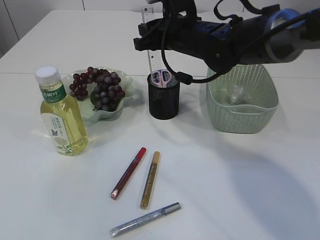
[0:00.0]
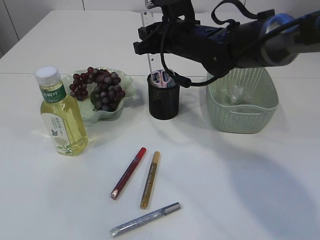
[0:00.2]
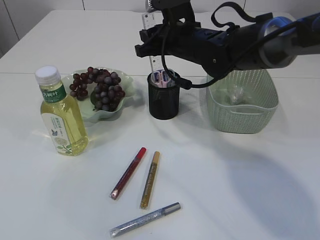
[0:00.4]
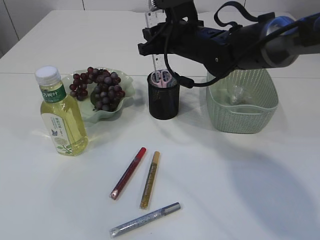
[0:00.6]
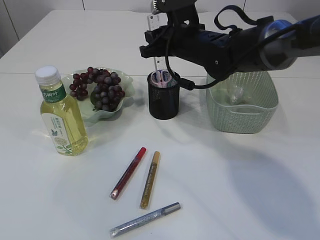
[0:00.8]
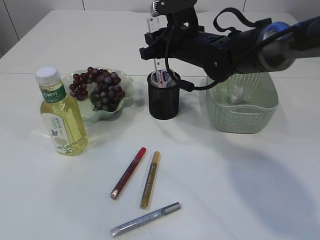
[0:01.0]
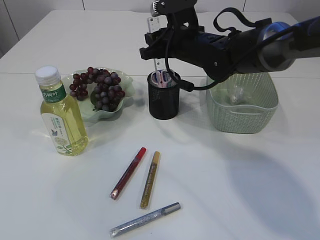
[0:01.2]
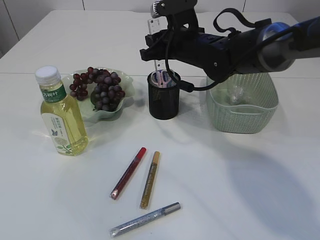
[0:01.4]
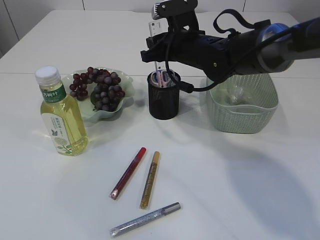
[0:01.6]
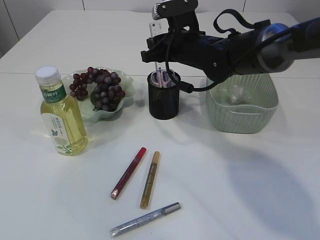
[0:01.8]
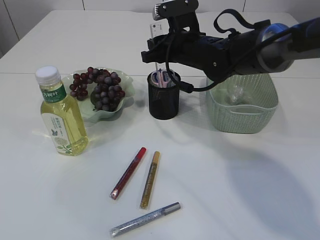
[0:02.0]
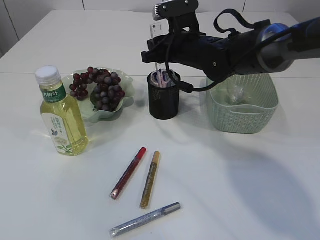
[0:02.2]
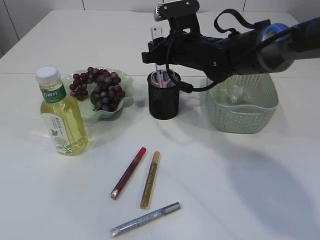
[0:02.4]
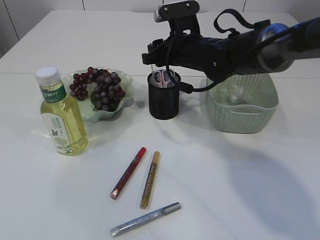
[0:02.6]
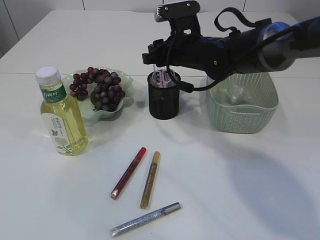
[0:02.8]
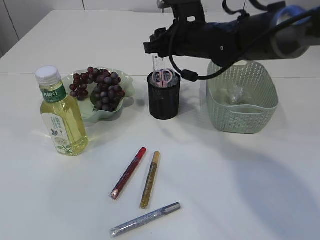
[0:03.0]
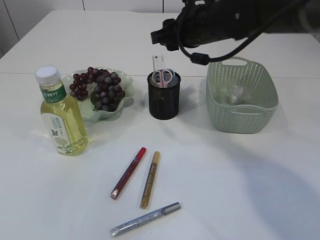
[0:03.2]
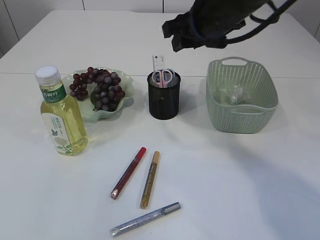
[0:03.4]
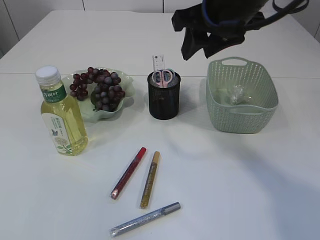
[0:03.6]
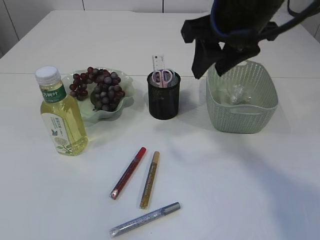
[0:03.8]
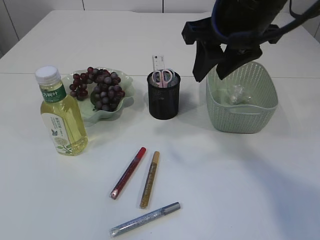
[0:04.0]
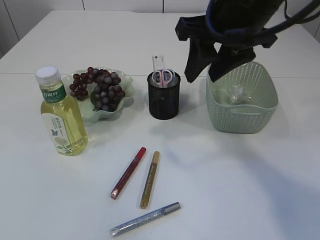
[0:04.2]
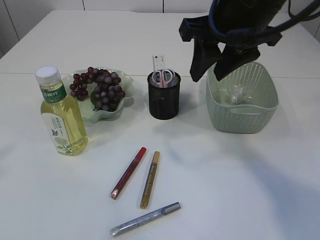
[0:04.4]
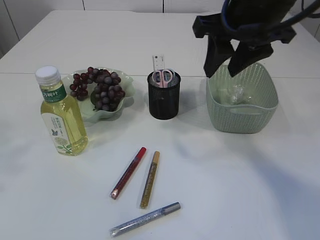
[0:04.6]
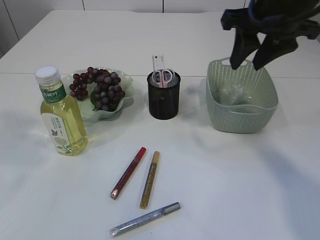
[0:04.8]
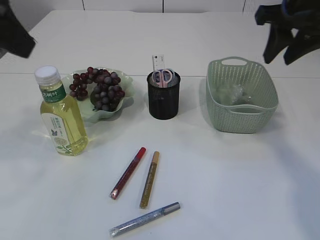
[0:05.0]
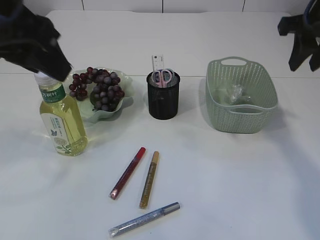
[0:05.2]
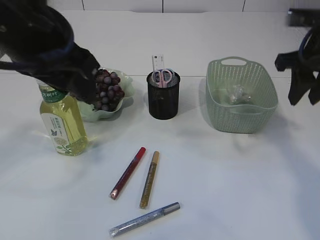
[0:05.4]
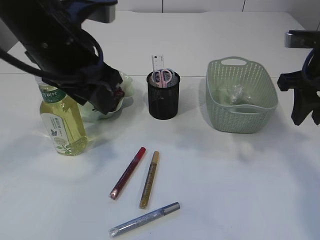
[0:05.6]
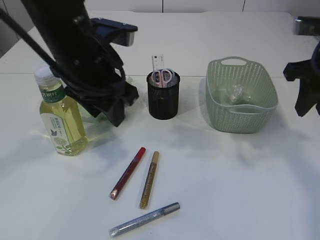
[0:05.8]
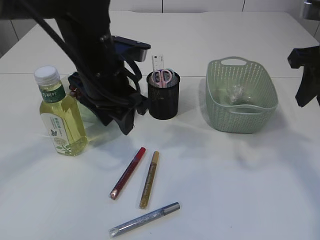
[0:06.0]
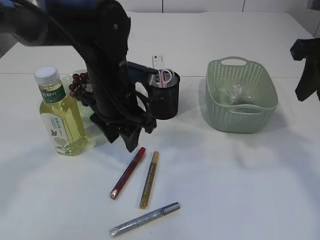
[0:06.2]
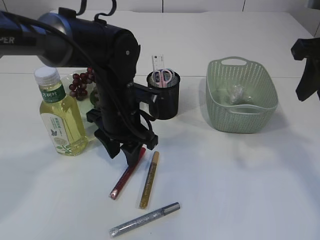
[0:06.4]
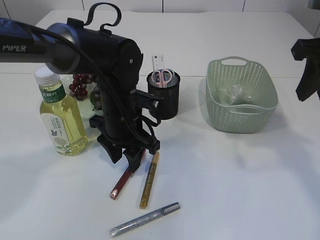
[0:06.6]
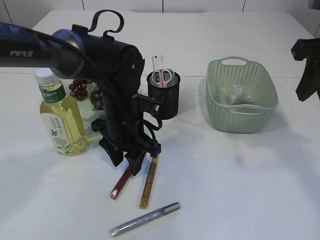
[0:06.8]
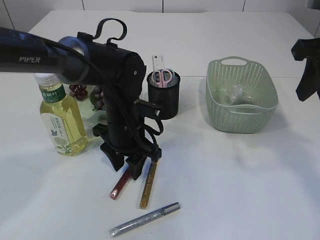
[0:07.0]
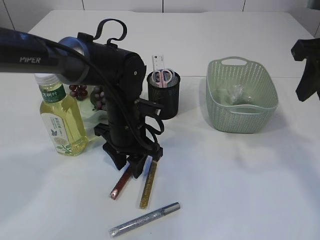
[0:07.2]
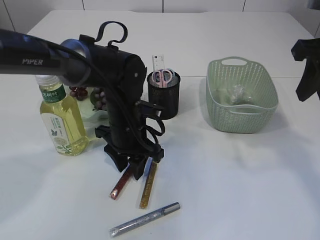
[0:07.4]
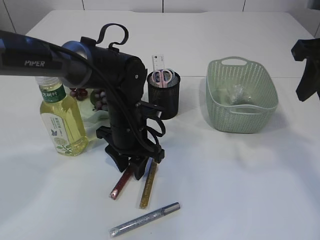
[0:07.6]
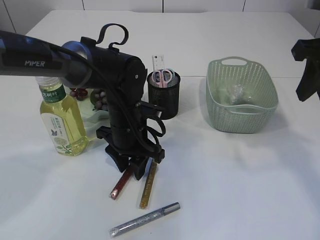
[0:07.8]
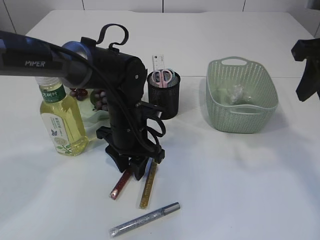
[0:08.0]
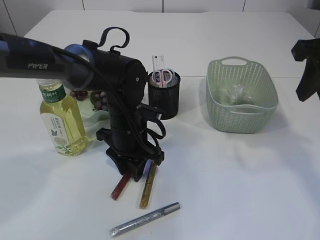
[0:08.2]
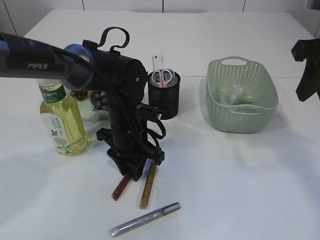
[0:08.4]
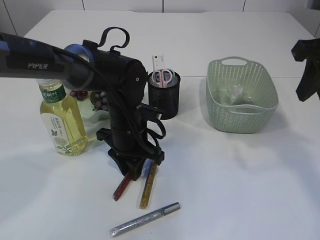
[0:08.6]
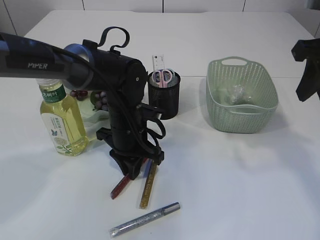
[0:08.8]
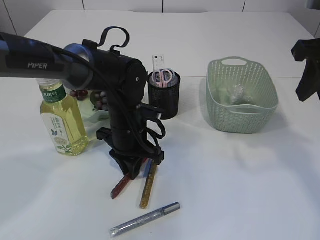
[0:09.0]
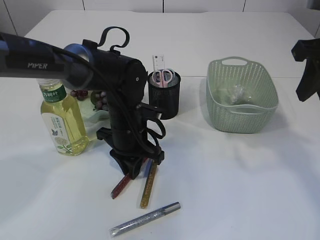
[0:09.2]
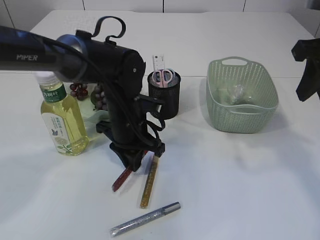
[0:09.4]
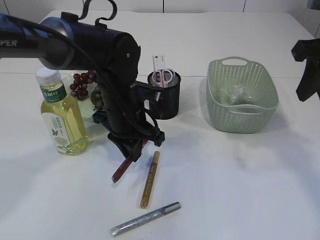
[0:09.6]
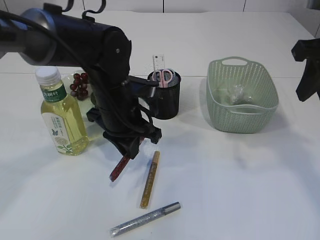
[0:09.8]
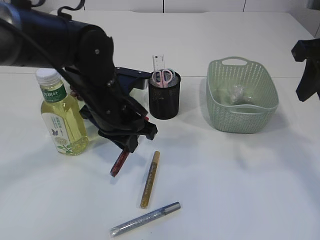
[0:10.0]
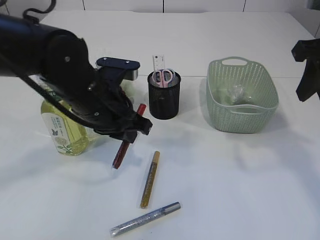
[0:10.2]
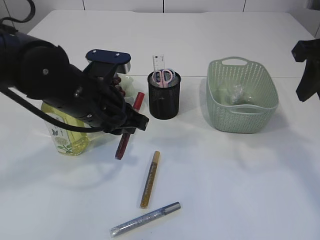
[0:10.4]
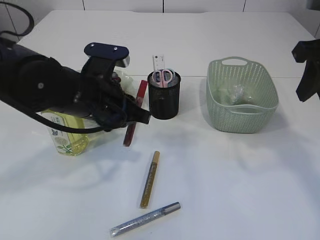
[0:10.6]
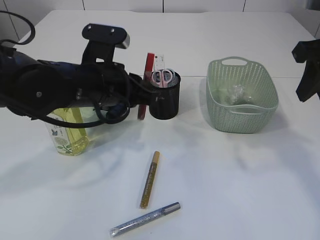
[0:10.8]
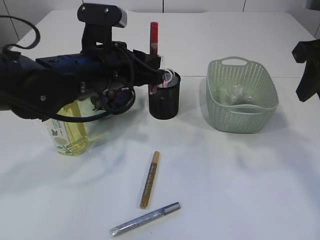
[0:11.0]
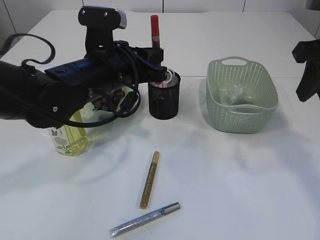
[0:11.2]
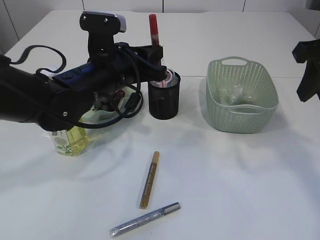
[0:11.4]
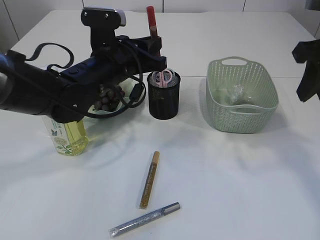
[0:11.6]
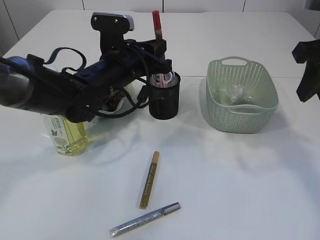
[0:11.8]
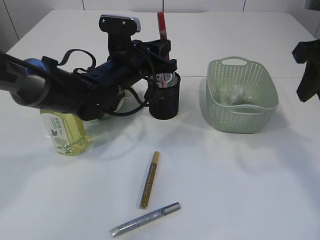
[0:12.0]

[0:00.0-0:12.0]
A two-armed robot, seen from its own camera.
Step, 0:00.0 to 0:03.4: Place the ruler into the pen holder.
Step, 0:03.6 to 0:09.8: pick up the red glue.
0:00.0 to 0:03.0: The grippers move only a little.
0:03.0 to 0:04.4: The right gripper travels backward and upward by some 15 cm.
0:04.4 to 0:06.0: The left gripper travels downward, forward and to the right by some 35 cm; the right gripper moves to the right, some 15 cm.
0:06.0 to 0:07.6: The left gripper travels downward by roughly 15 cm.
0:07.6 to 0:09.0: The left gripper closes.
0:09.0 to 0:10.4: The left gripper moves upward and backward, some 10 cm.
0:10.4 to 0:12.0: The left gripper is displaced forward by about 10 cm.

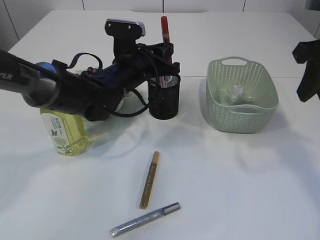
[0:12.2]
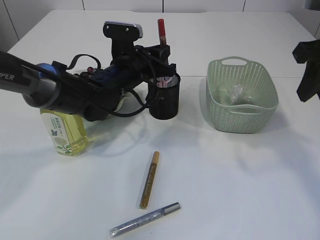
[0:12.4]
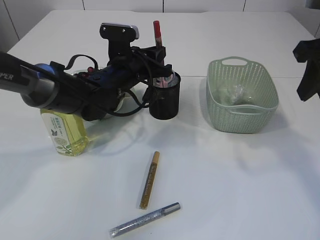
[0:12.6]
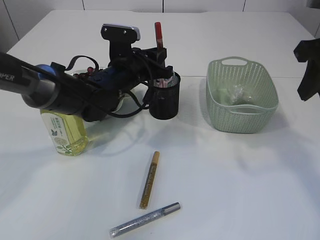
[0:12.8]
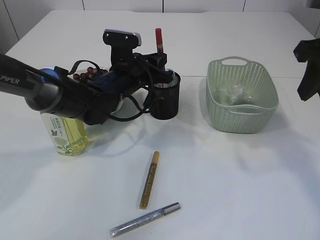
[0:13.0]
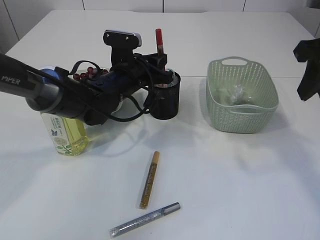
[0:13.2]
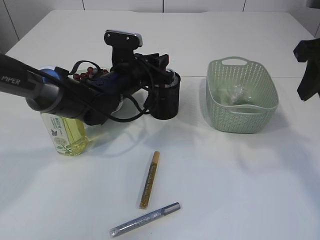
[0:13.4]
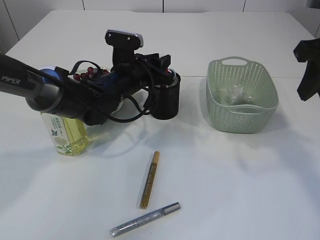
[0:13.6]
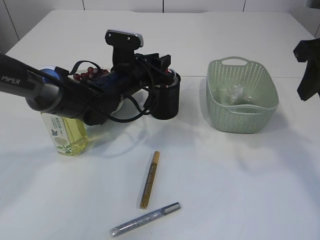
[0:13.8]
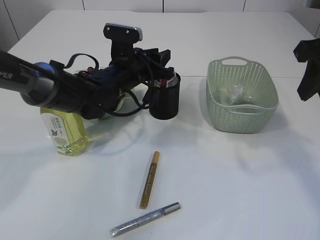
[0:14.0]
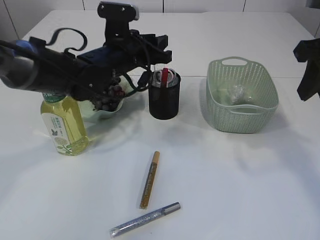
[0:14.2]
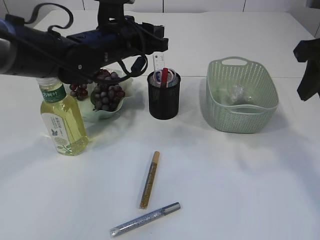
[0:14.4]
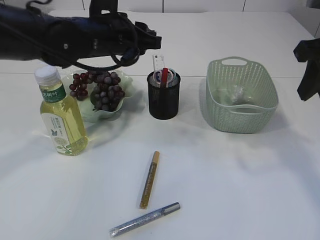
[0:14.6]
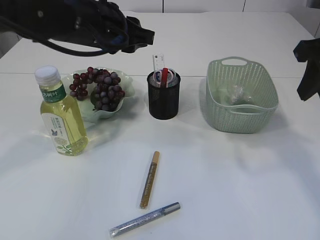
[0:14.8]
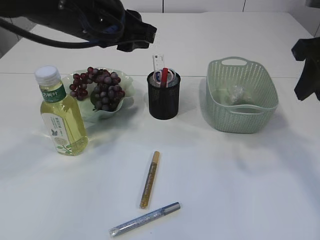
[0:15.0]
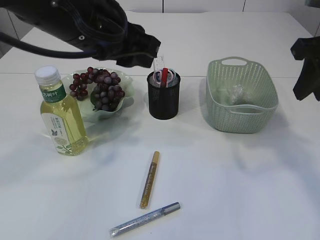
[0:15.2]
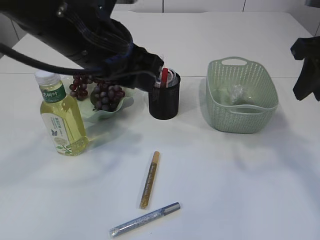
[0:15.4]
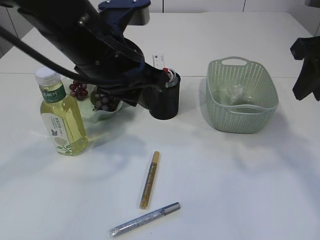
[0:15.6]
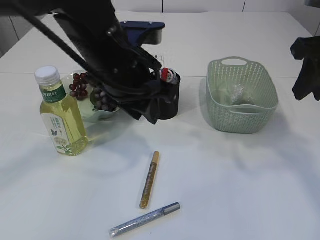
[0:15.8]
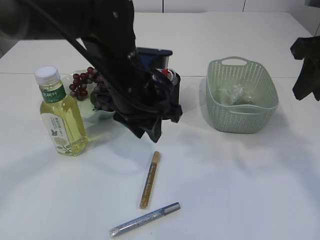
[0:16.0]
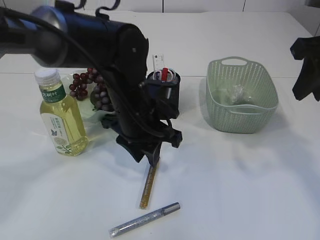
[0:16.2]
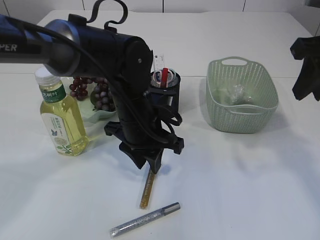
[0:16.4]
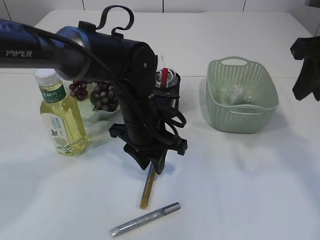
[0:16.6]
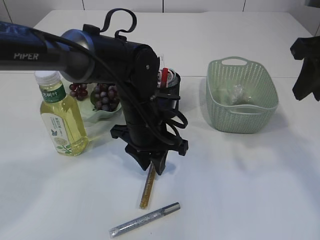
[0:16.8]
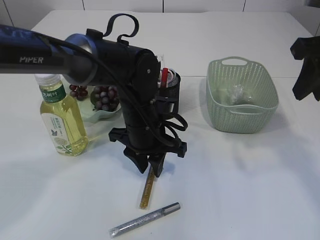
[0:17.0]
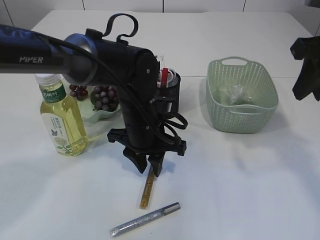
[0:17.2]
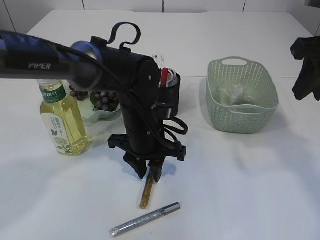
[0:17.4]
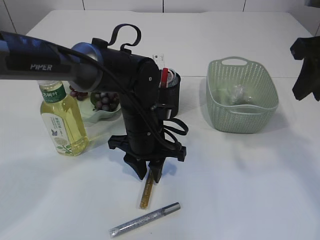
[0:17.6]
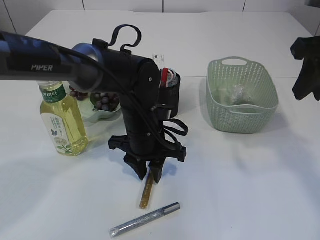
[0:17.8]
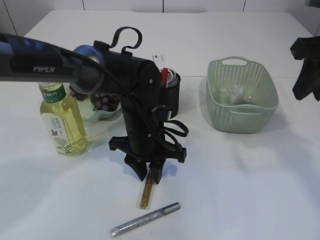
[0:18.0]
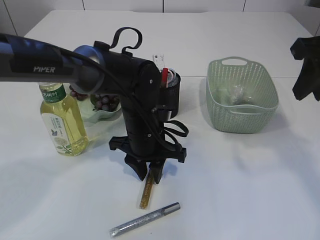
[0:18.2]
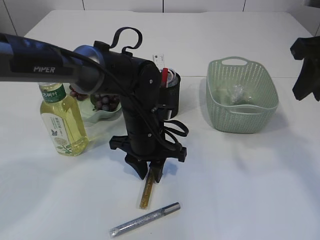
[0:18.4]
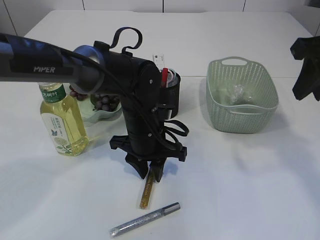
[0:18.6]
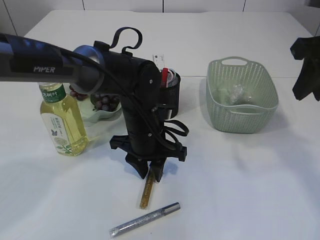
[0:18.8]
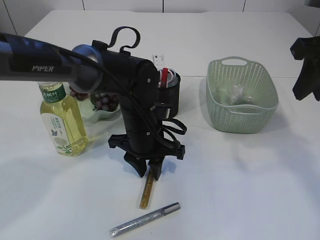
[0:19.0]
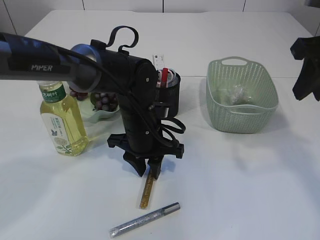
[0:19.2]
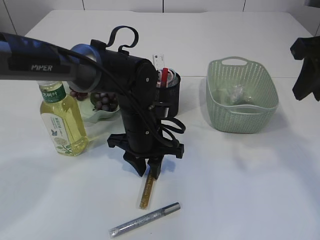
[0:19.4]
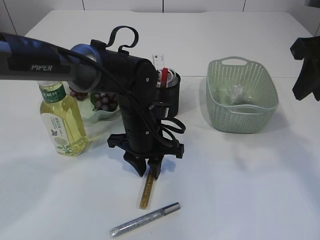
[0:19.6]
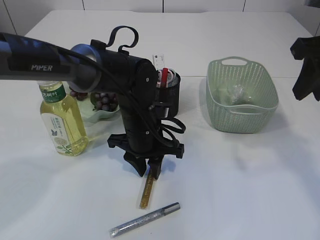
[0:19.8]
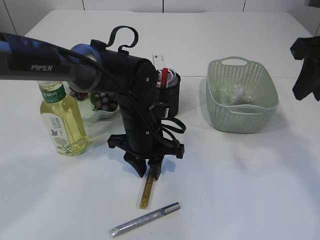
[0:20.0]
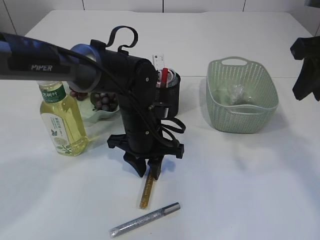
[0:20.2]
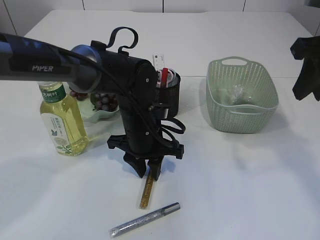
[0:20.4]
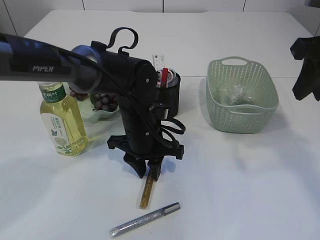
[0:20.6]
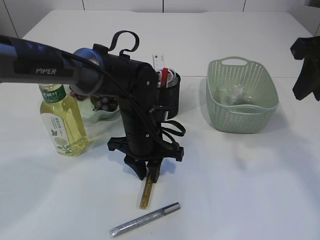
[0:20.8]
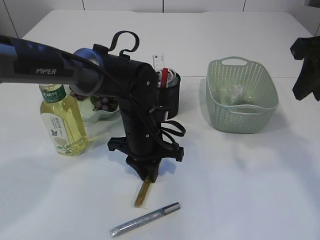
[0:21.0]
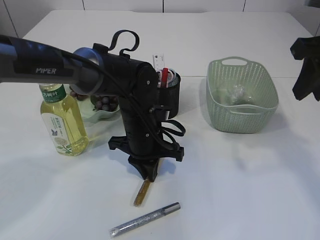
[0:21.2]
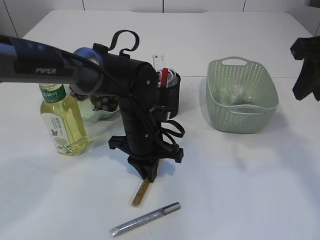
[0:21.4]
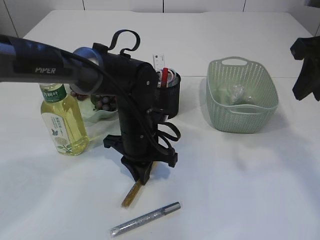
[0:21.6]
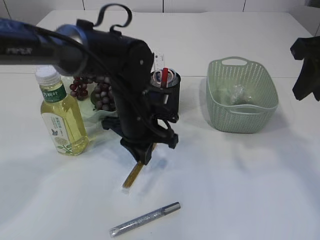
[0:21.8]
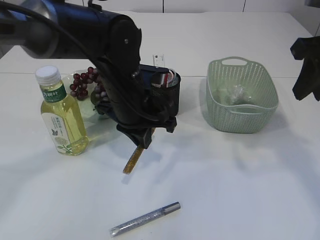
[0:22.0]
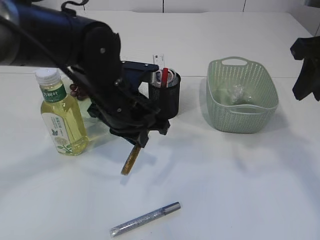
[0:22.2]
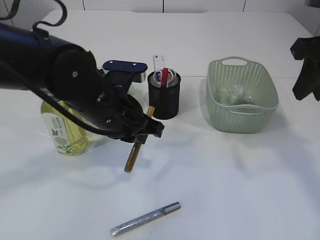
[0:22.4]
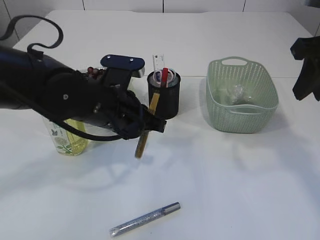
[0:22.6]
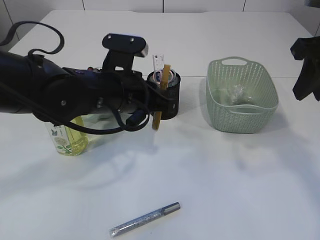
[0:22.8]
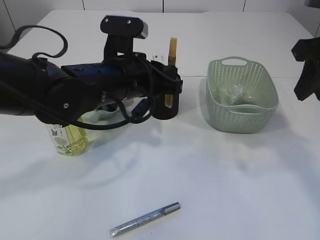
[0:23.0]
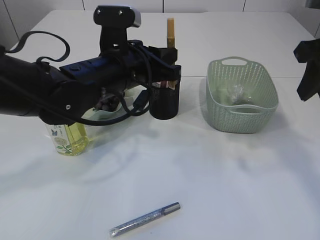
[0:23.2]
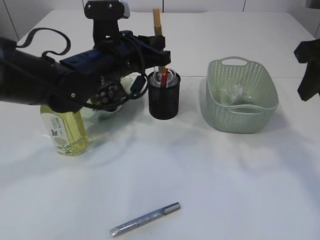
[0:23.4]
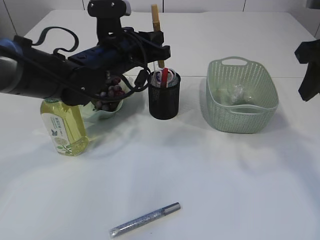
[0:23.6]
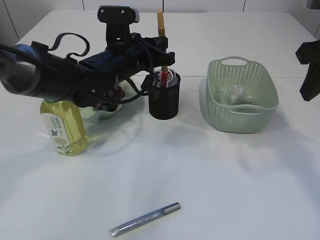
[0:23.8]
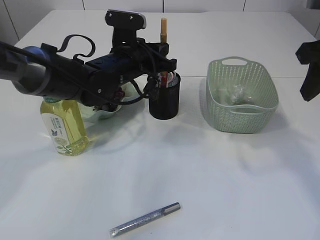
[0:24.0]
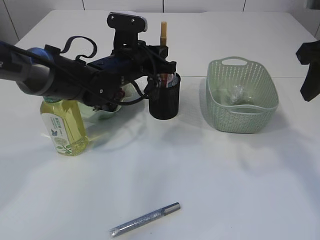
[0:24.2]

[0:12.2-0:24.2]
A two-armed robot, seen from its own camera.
Step, 0:12.2 to 0:14.8: place the red glue into the pen holder.
Step, 0:15.0 to 0:22.0: pick up the yellow glue.
0:12.2 to 0:13.8: There are only small adjustments of the grippers.
0:13.8 to 0:15.2: The left gripper goes some 20 cm upward and backward.
0:15.2 to 0:16.6: The left gripper shifts about 15 cm downward.
0:16.6 to 0:18.2: The grippers make only small movements.
0:18.2 to 0:19.8: The two grippers keep their place.
0:19.8 to 0:21.2: The left gripper closes.
0:21.2 to 0:22.6: The left gripper travels upward by some 10 cm.
0:22.6 to 0:24.2: The left gripper is displaced forward by roughly 10 cm.
